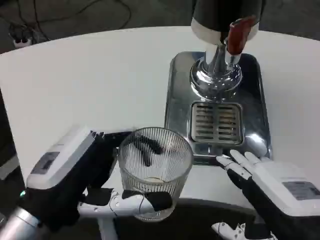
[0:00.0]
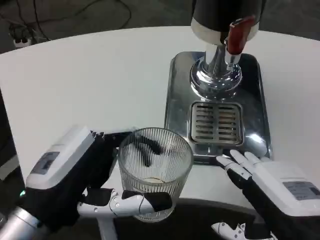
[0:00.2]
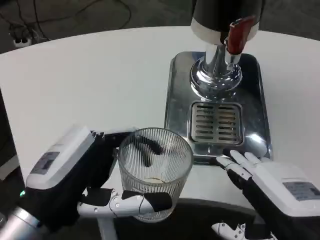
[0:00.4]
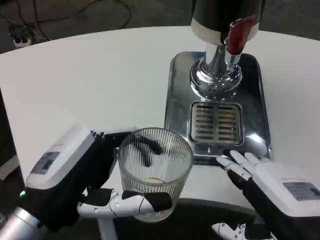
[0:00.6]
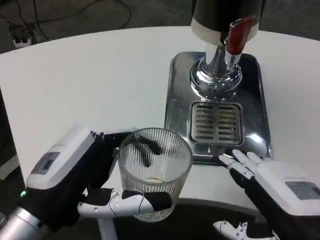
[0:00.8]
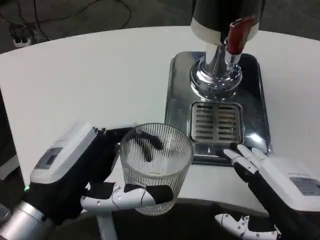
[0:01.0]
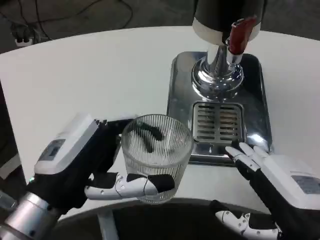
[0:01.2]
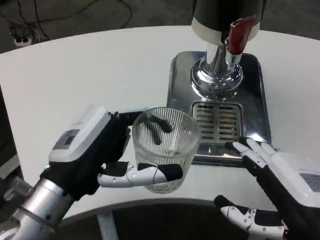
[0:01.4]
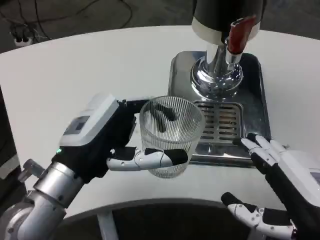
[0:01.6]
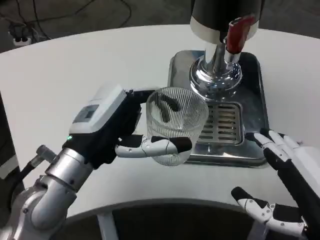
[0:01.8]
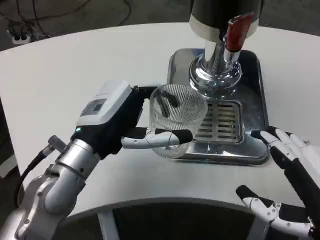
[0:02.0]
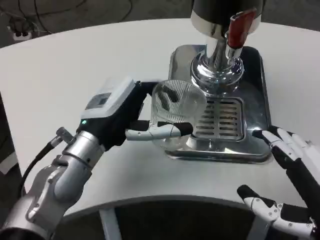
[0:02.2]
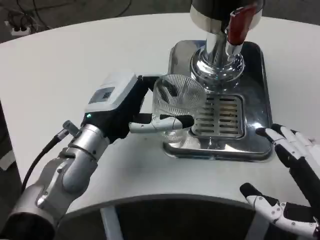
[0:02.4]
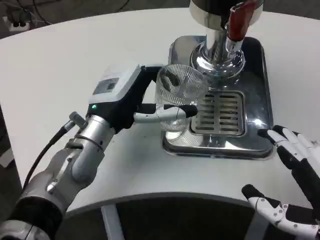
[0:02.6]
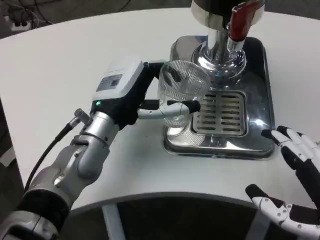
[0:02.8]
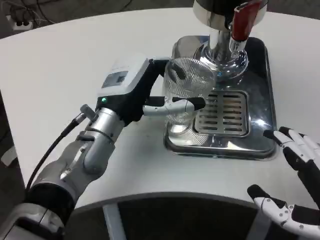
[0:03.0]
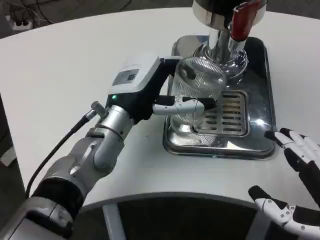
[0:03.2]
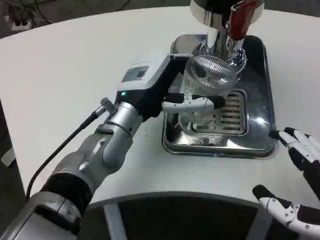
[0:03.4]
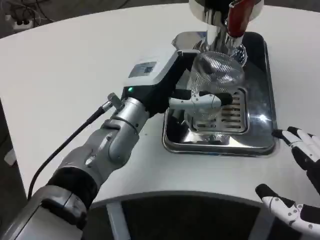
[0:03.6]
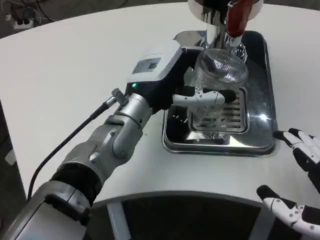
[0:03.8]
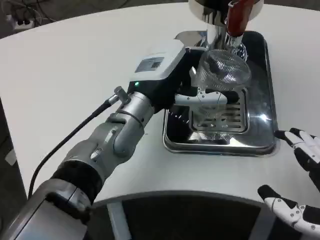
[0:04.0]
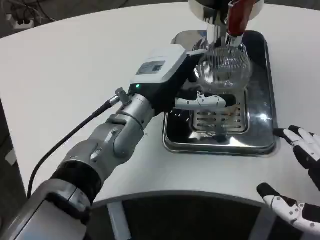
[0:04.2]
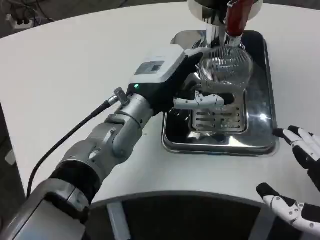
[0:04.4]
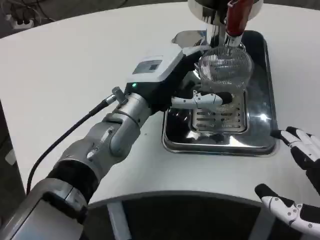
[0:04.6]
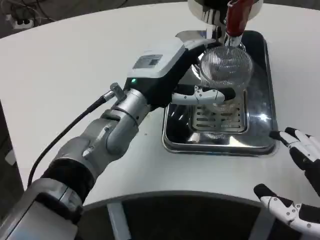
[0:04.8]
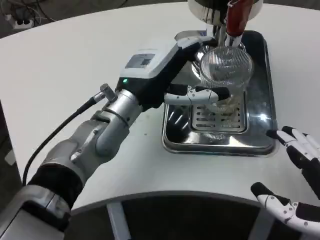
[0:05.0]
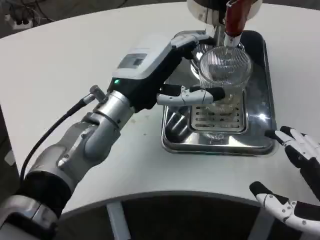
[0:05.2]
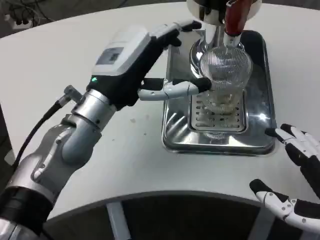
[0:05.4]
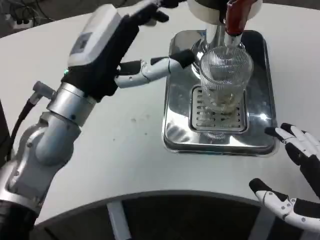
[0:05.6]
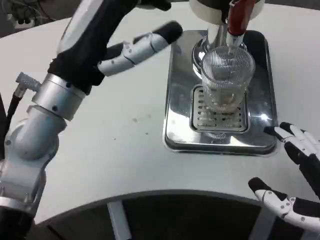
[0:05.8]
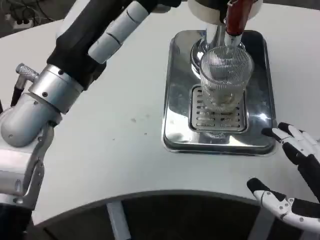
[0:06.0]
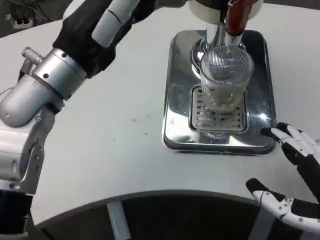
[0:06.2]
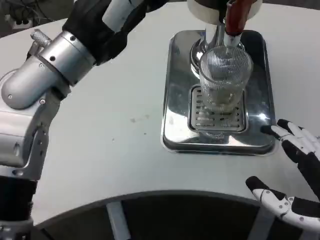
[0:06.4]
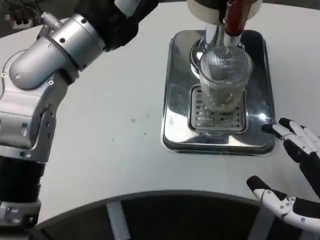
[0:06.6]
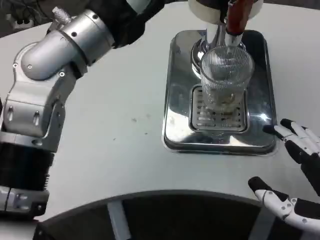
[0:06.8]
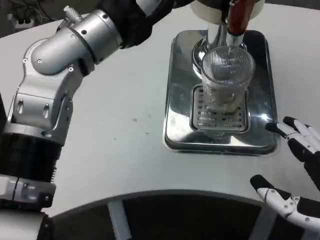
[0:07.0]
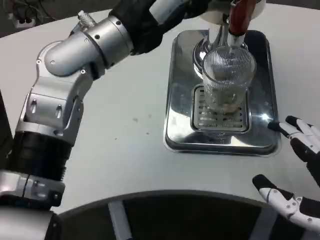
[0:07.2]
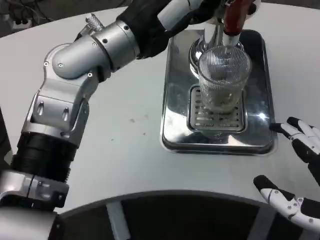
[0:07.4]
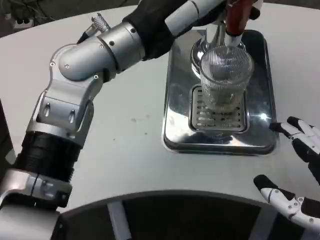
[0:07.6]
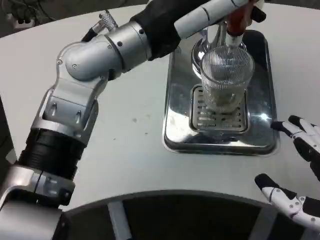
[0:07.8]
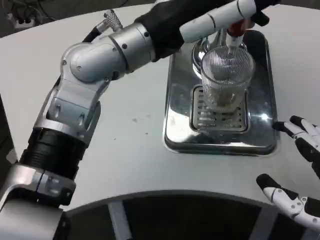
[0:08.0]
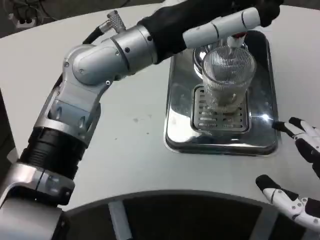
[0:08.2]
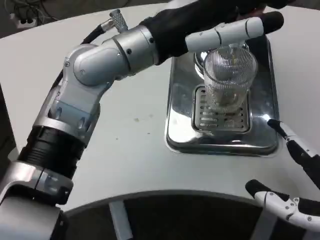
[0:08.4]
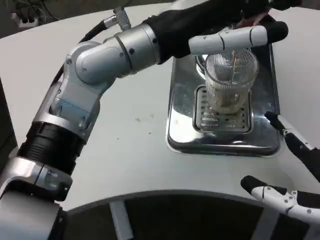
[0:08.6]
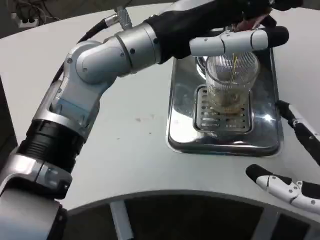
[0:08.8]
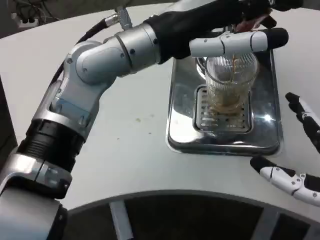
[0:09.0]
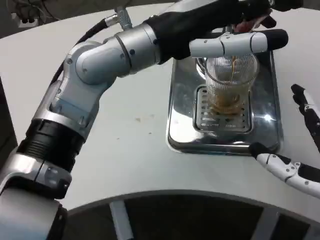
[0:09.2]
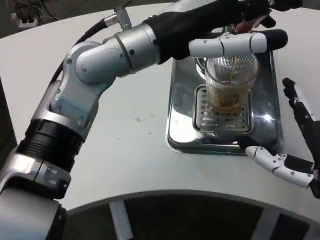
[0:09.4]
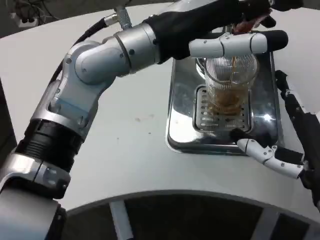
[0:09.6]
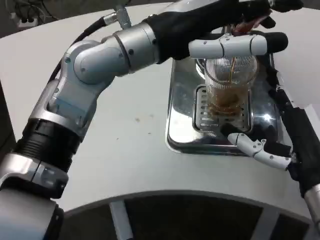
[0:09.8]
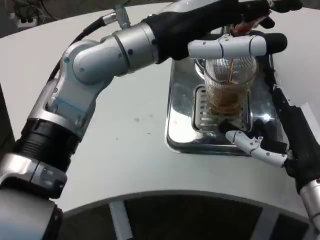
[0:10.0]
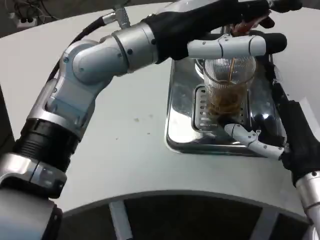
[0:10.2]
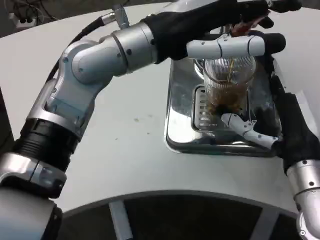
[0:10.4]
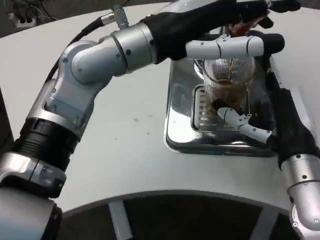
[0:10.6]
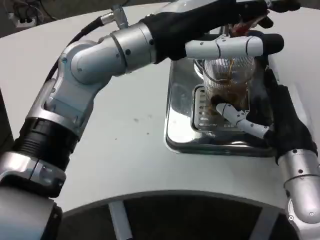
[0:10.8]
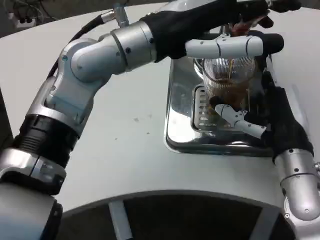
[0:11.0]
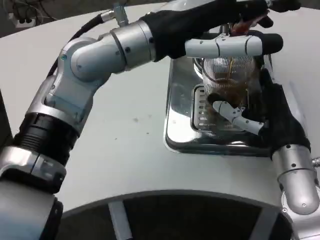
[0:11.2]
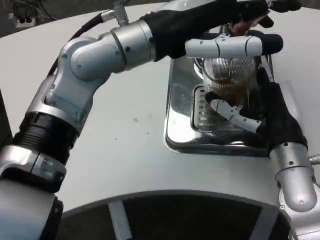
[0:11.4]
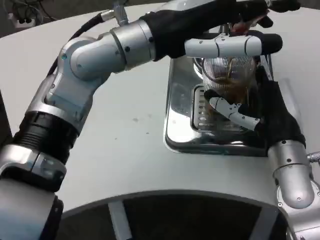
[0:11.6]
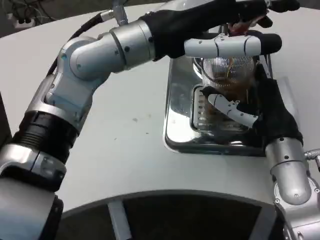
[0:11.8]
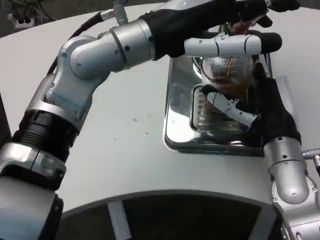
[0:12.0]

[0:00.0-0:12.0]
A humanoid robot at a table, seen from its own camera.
Task of the whole recording: Grasp the cup under the faucet to collect the drink, then remove the cup.
0:00.0 to 0:01.6: The left hand moves forward, roughly 5 cm.
0:01.6 to 0:03.0: The left hand shifts some 10 cm forward.
0:04.4 to 0:06.0: The left hand heads to the left, upward and backward, covering about 15 cm.
0:06.0 to 0:07.6: The left hand is displaced to the right and upward by roughly 10 cm.
0:09.0 to 0:10.4: The right hand is displaced forward by roughly 10 cm.

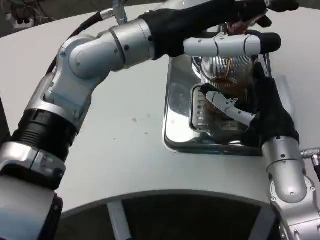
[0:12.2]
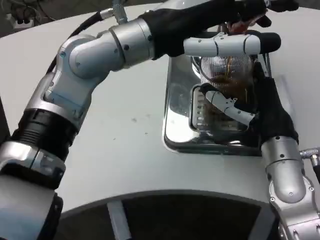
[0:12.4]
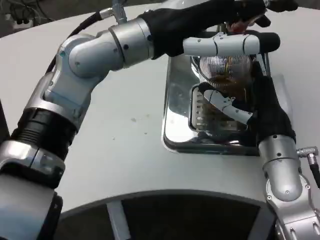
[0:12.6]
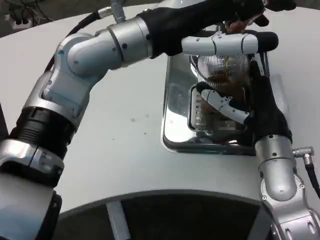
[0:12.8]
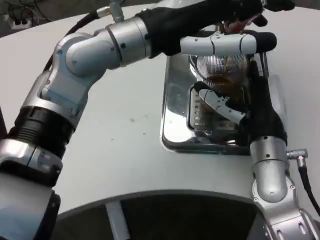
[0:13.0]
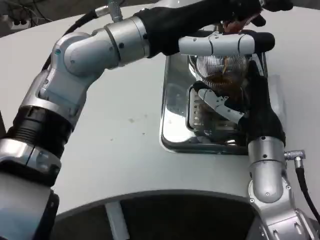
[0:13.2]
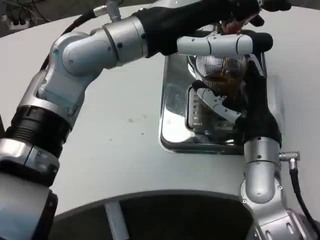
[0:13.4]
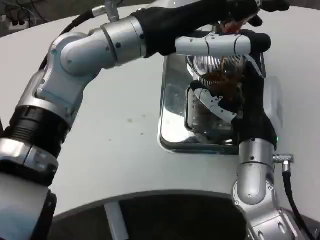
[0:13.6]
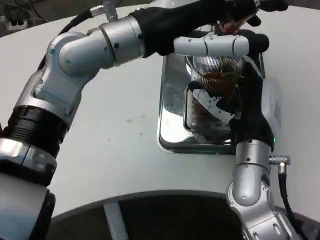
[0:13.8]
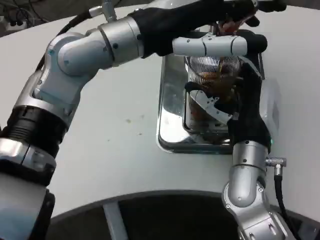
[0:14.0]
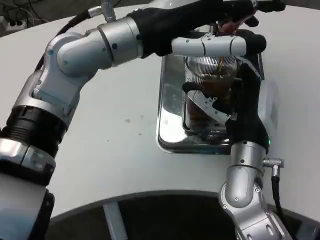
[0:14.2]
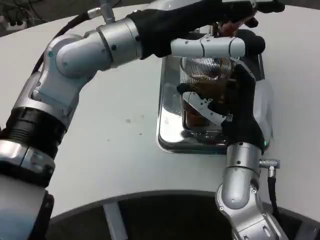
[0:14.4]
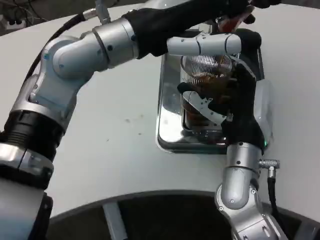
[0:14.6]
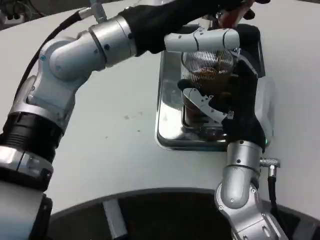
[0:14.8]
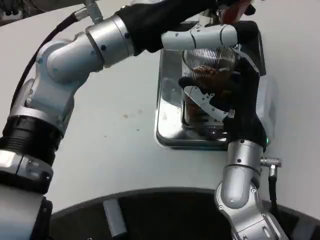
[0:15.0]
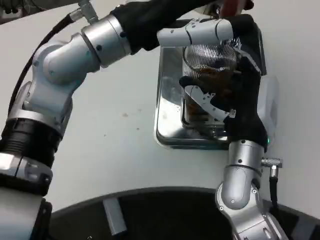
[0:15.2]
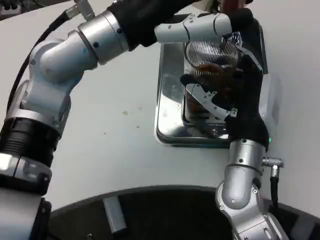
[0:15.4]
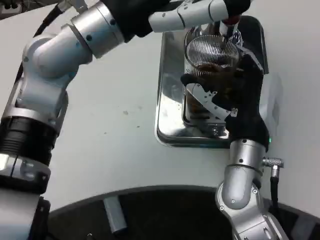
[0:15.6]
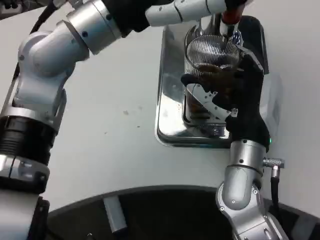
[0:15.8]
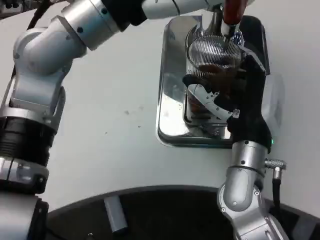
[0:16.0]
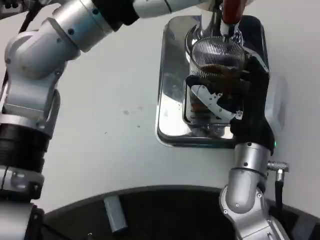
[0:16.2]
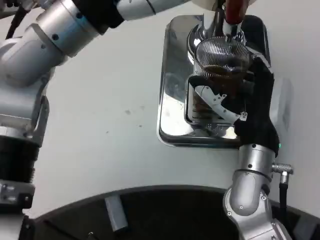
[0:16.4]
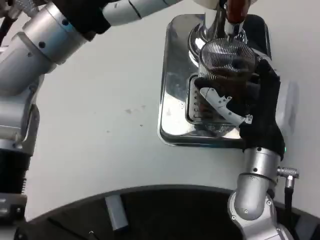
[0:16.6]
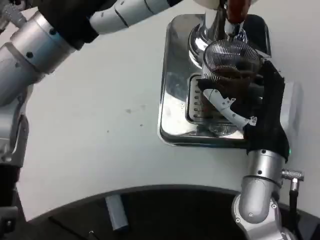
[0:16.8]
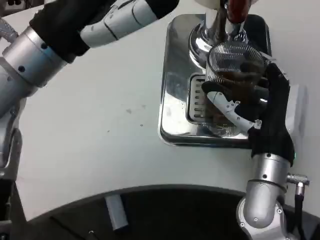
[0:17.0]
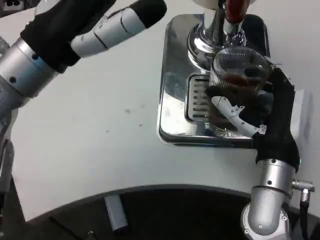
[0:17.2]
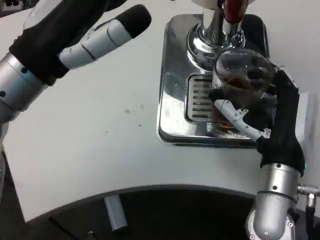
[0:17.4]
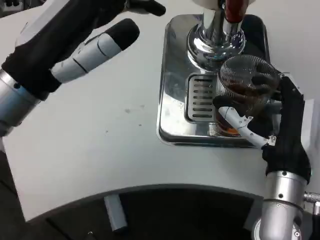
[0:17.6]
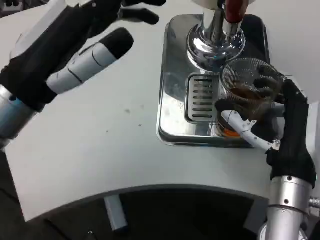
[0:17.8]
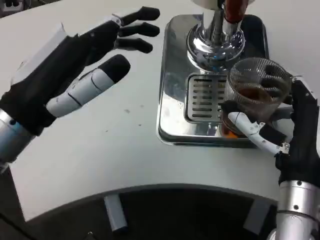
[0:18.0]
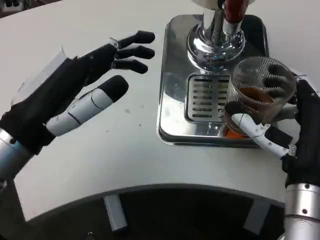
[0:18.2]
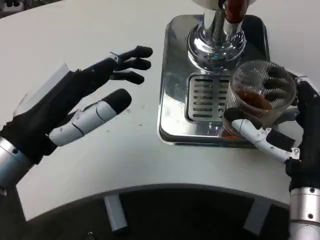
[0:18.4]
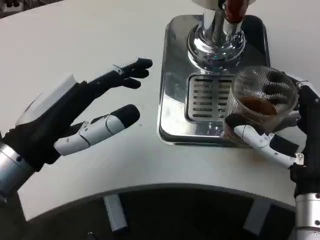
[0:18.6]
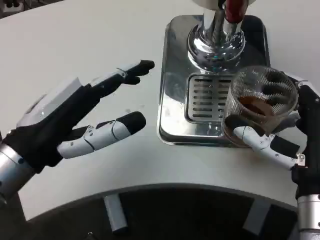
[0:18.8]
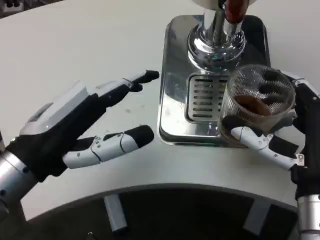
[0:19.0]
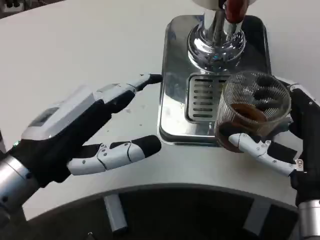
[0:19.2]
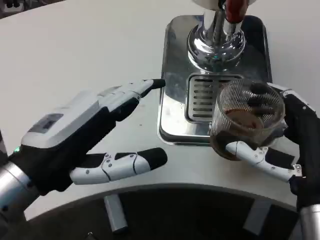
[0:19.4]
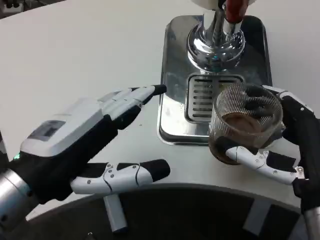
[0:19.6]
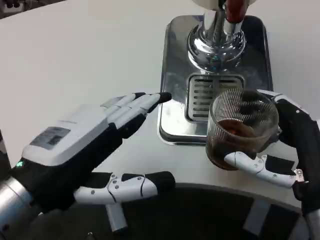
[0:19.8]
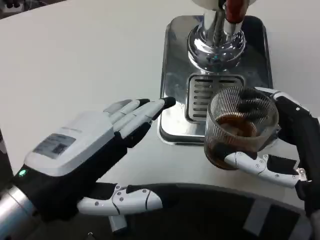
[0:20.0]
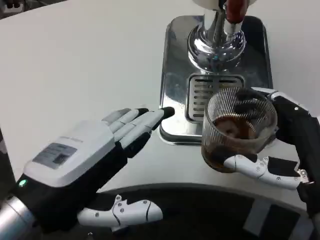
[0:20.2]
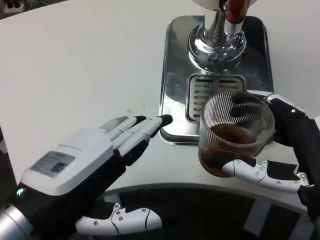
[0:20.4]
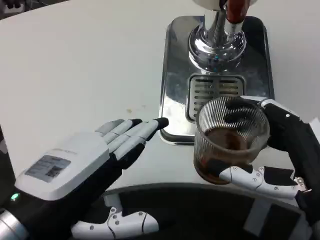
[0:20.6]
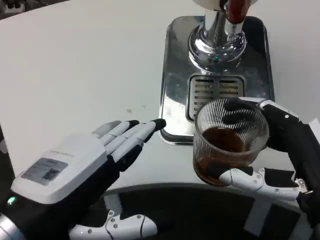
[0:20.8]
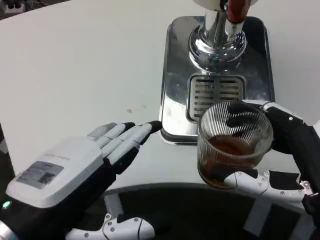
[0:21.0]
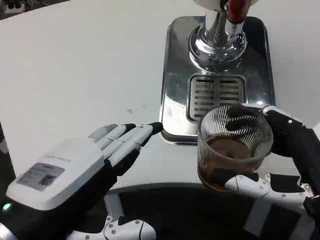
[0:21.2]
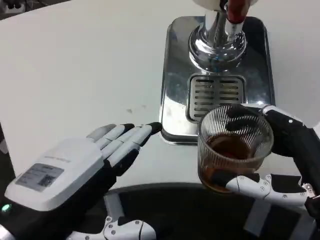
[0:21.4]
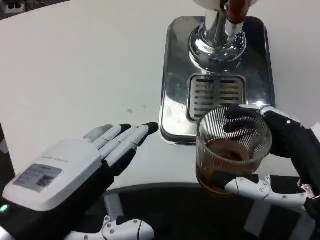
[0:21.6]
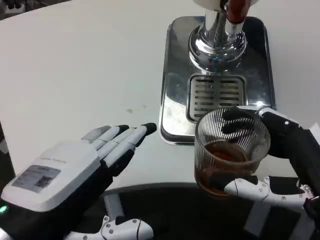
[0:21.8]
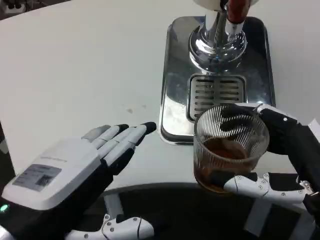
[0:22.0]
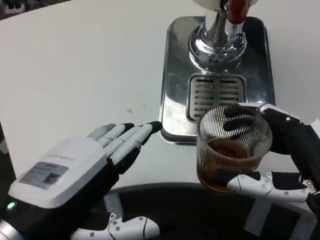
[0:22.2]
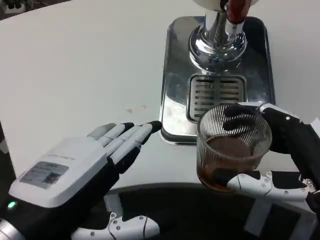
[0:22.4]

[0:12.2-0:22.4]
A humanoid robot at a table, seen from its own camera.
Task of the whole recording: Grasp the cup under the faucet to collect the drink, then remove the cup.
0:15.2 to 0:16.6: The left hand moves about 5 cm.
0:16.6 to 0:18.0: The right hand is displaced backward by about 5 cm, while the left hand moves downward, backward and to the left, some 10 cm.
0:18.0 to 0:19.4: The right hand changes place by approximately 5 cm. The left hand moves backward, roughly 5 cm.
0:19.4 to 0:21.0: The left hand shifts roughly 5 cm backward.
0:21.0 to 0:22.4: The two hands keep their place.
